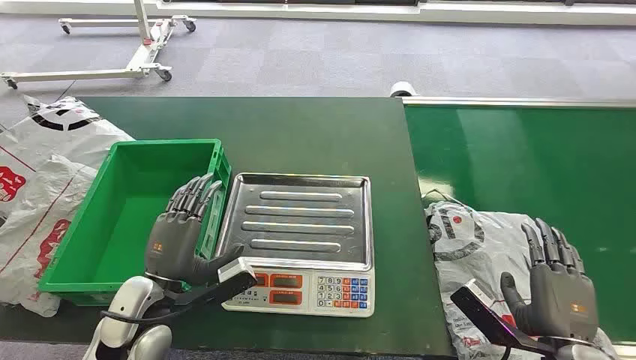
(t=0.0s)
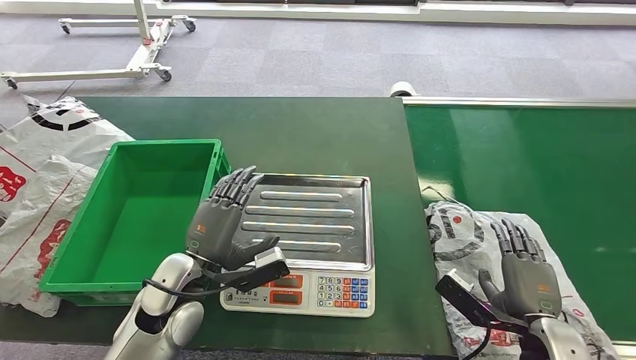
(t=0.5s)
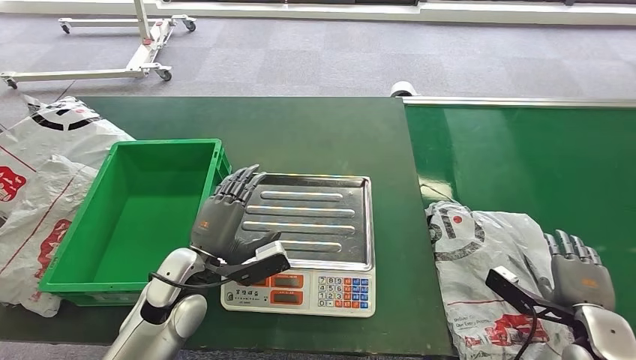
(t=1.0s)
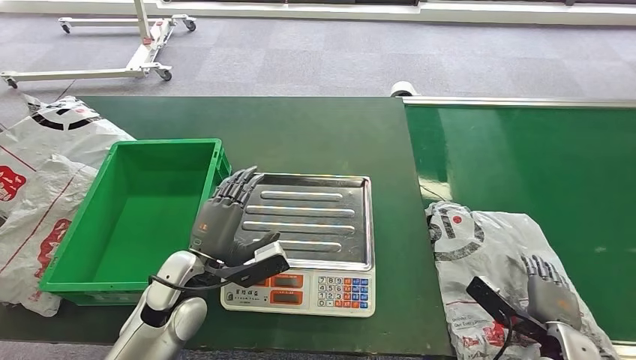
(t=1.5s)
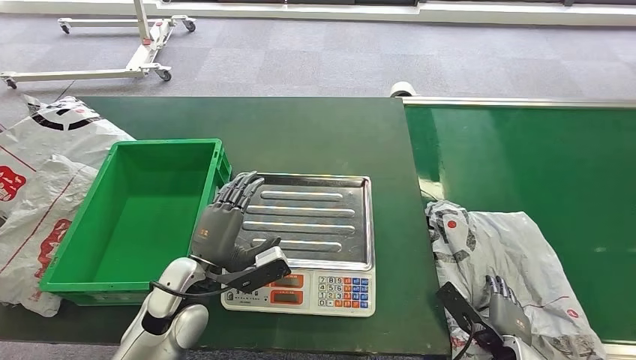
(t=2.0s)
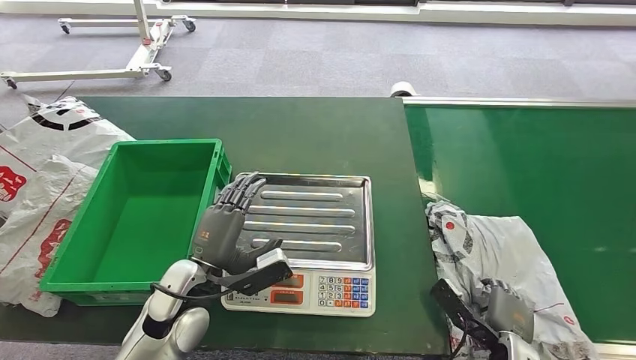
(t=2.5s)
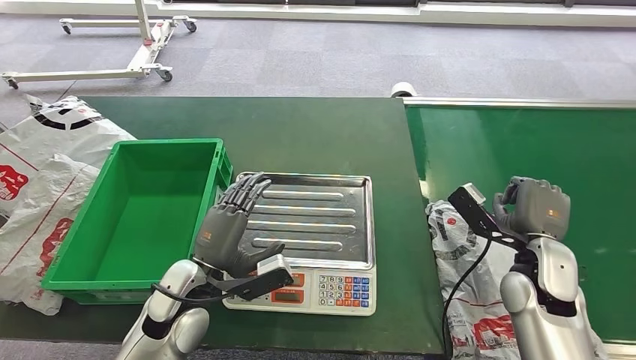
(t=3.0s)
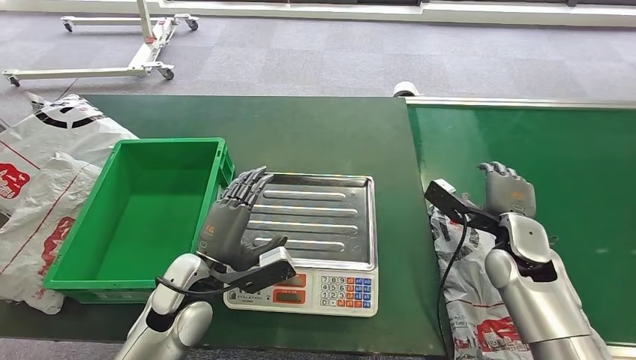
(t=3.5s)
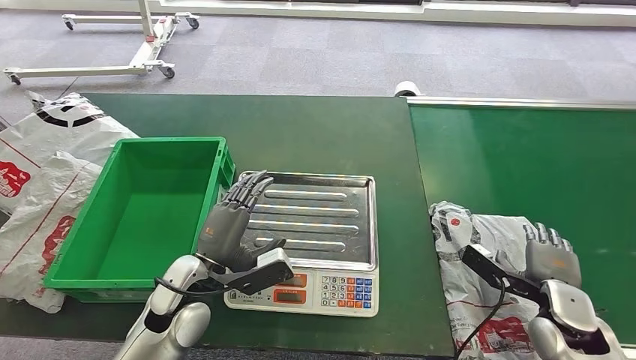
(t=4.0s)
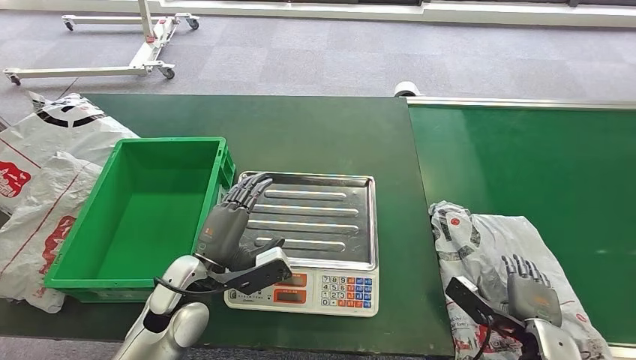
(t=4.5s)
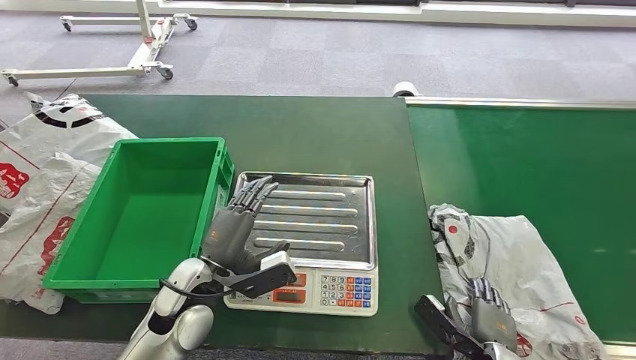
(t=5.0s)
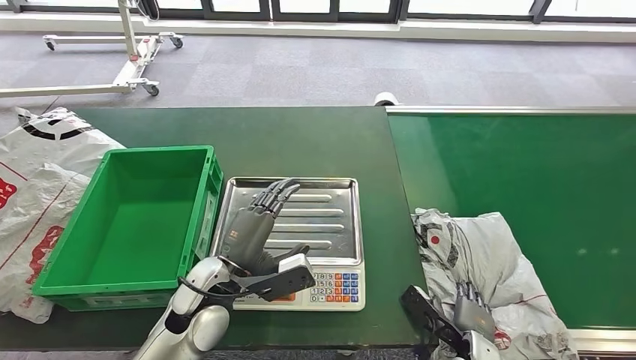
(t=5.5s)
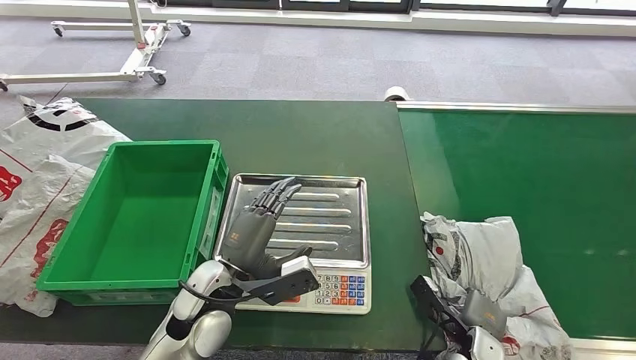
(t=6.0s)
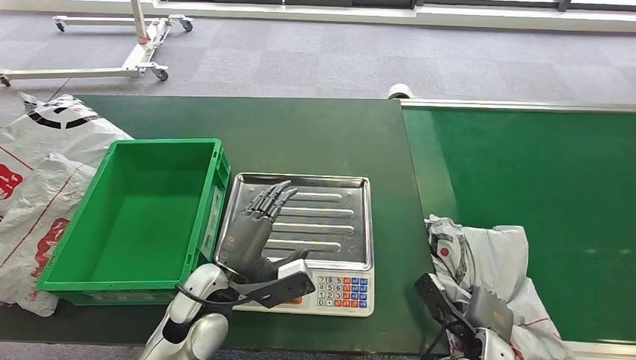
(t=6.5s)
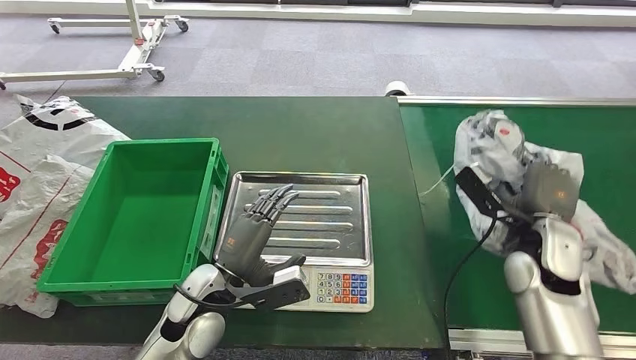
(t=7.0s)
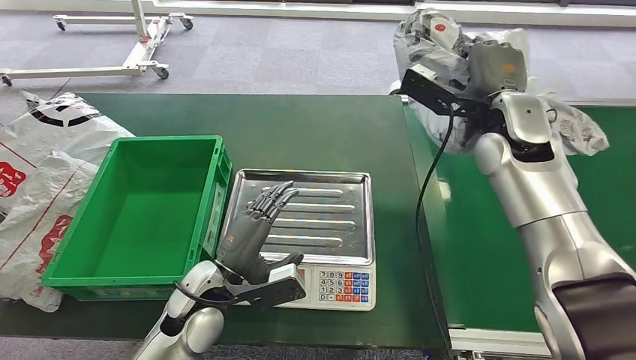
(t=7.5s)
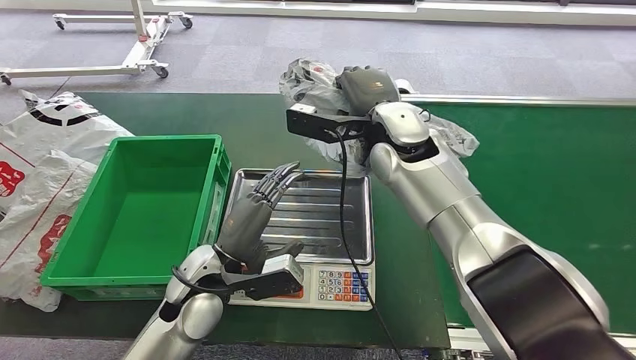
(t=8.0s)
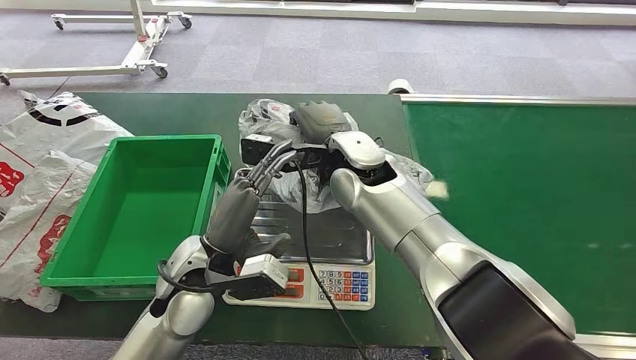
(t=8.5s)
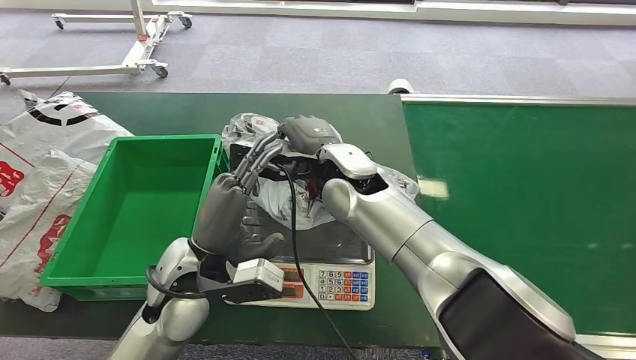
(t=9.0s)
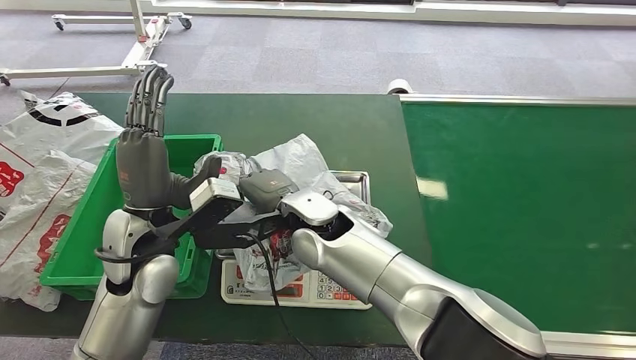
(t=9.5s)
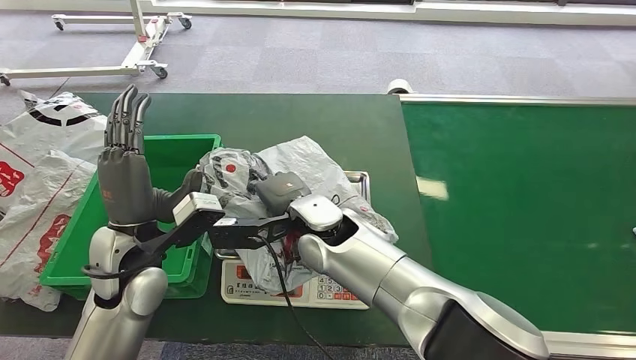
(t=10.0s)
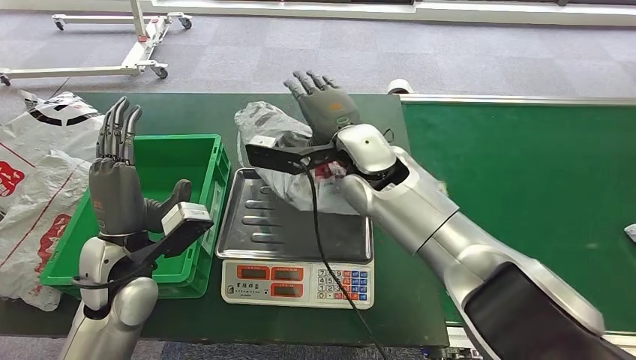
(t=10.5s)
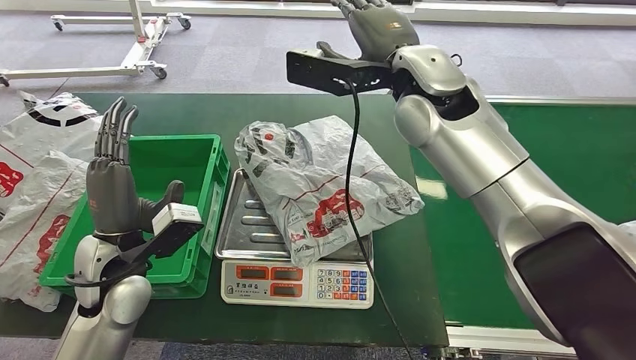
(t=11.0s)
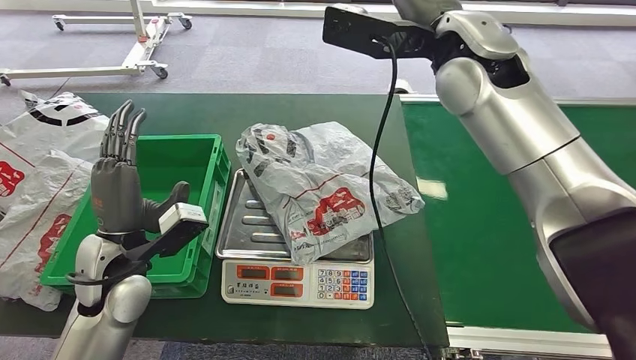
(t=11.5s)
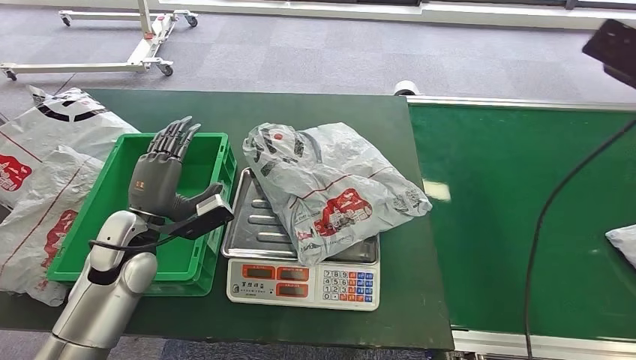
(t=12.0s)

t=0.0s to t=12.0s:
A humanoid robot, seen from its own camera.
Step, t=0.0s to t=7.0s: Pick up the package from the conveyor belt.
Step, t=8.0s to t=11.5s: Place the package onto the inbound machine.

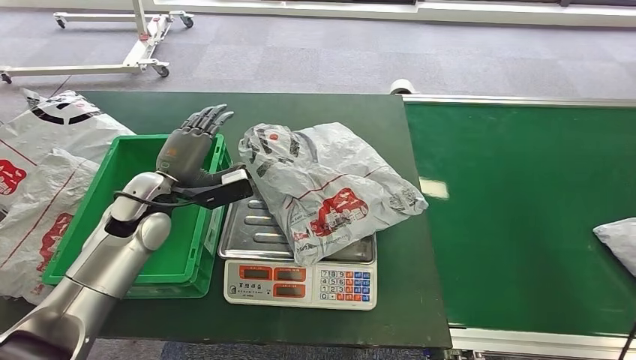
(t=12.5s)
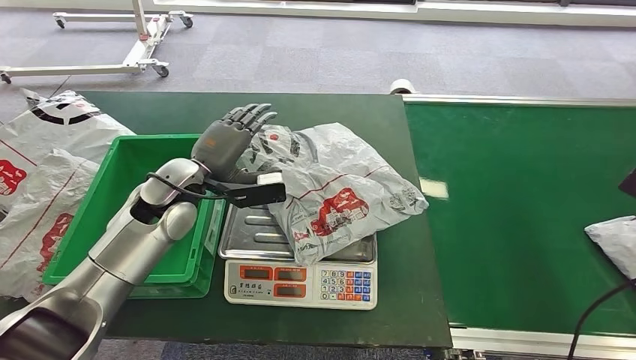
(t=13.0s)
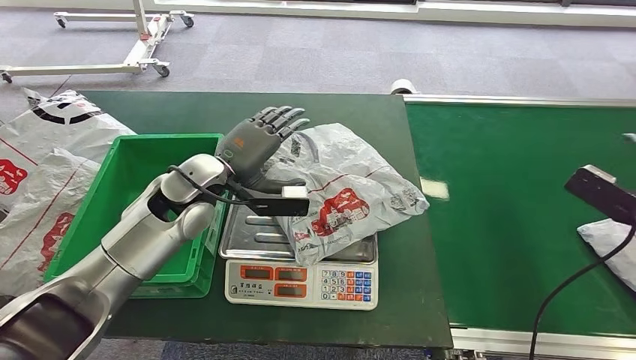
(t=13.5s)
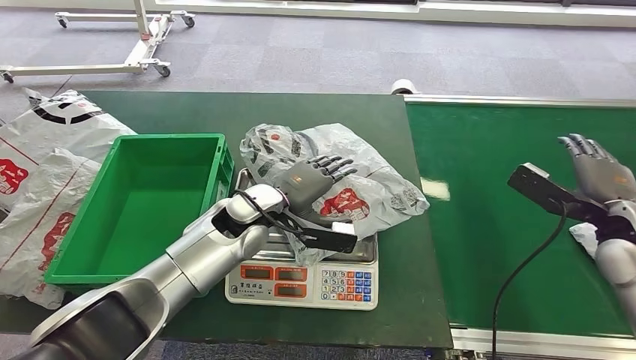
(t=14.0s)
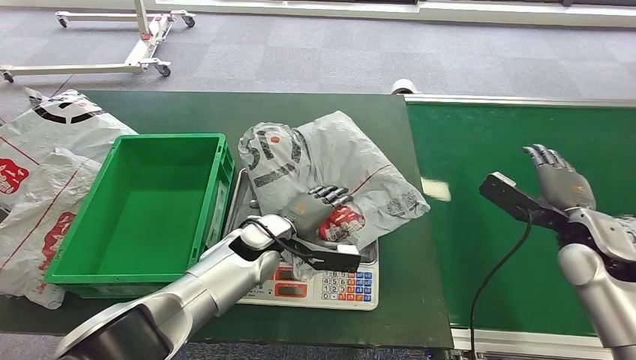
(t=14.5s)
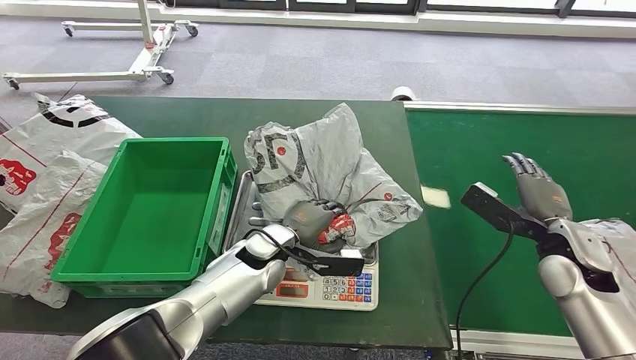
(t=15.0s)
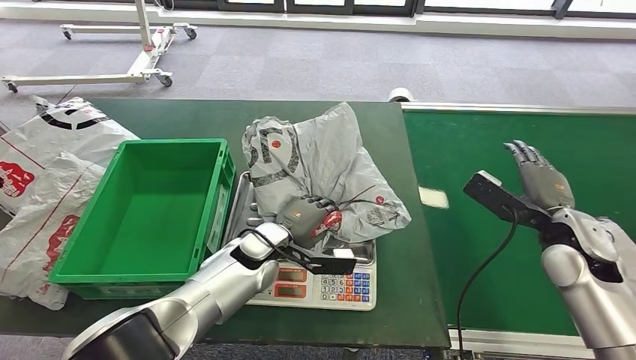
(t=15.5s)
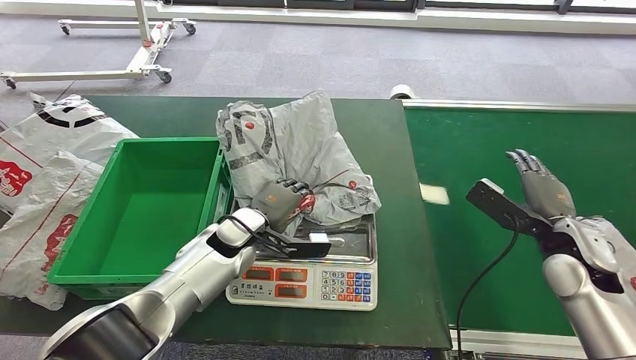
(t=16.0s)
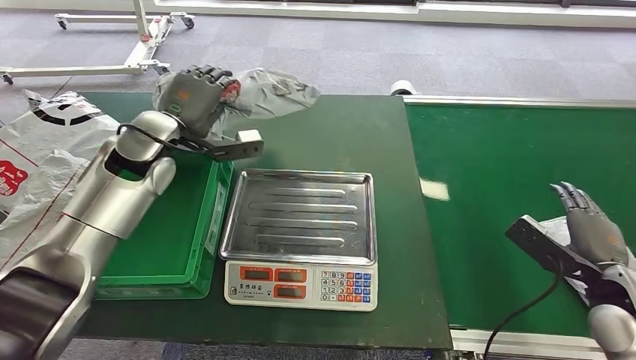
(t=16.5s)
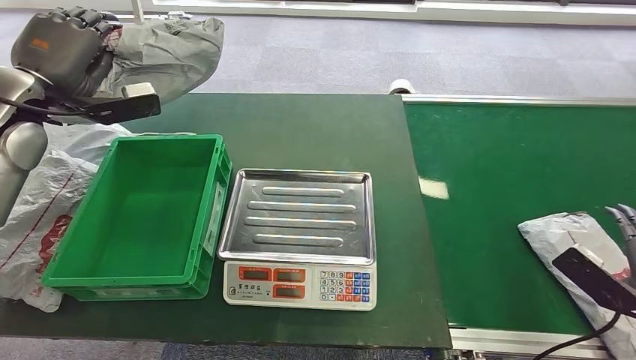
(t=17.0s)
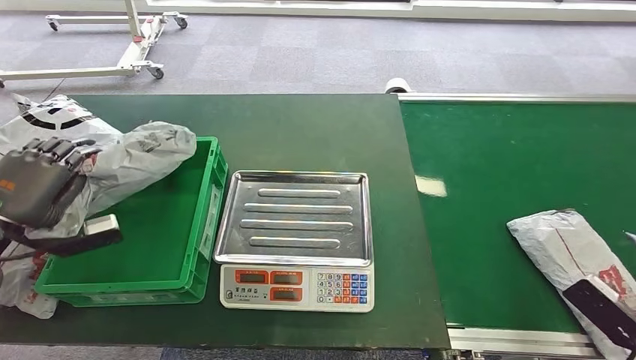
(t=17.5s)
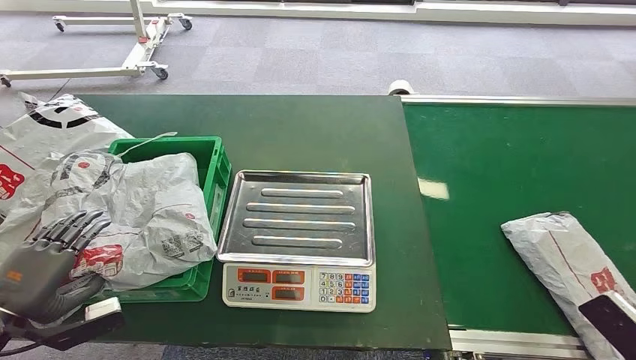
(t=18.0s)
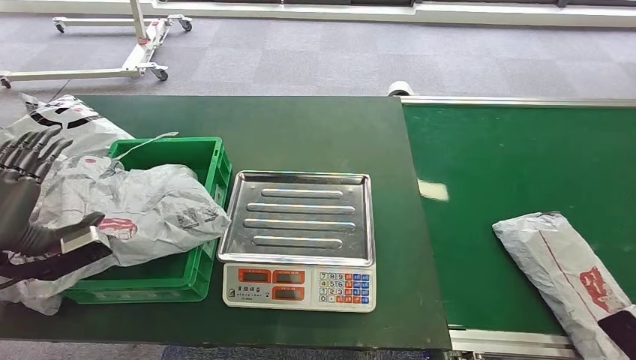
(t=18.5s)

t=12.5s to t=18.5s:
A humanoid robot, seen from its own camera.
Step, t=12.5s to t=16.5s: Pick up the package from the inbound machine.
Step, t=17.0s to t=18.5s: Place the package into the parcel locker.

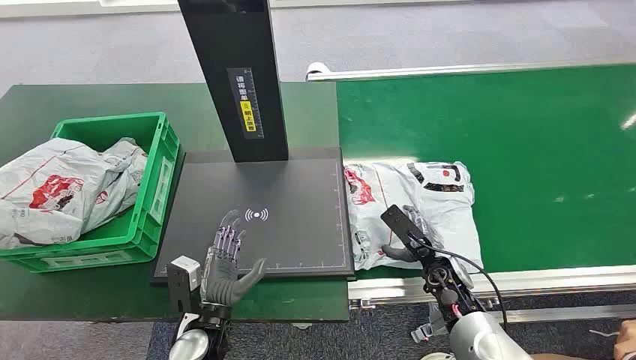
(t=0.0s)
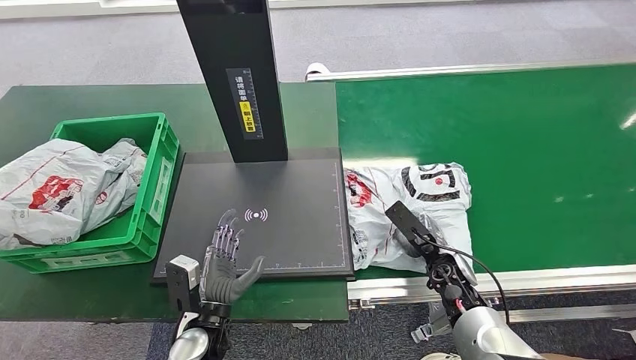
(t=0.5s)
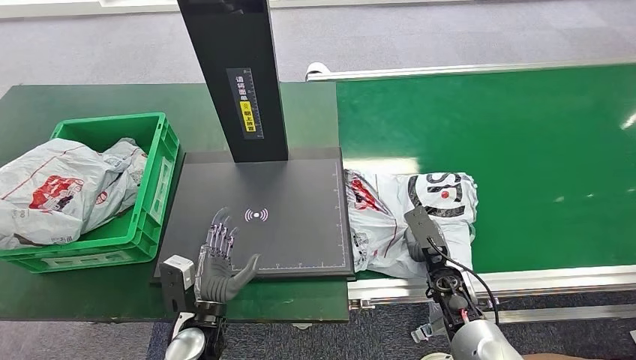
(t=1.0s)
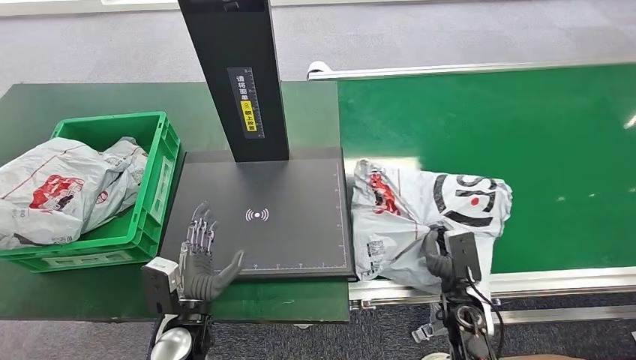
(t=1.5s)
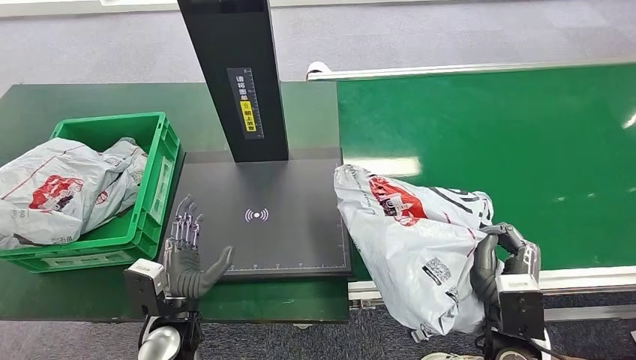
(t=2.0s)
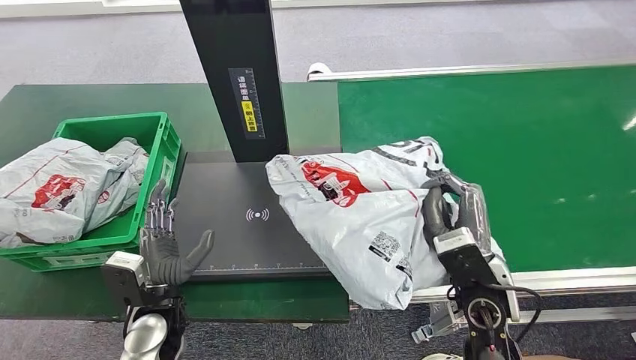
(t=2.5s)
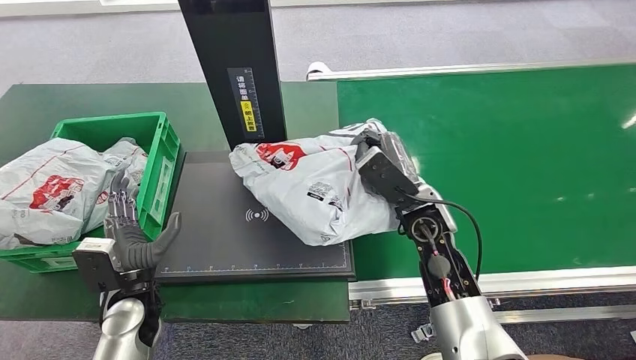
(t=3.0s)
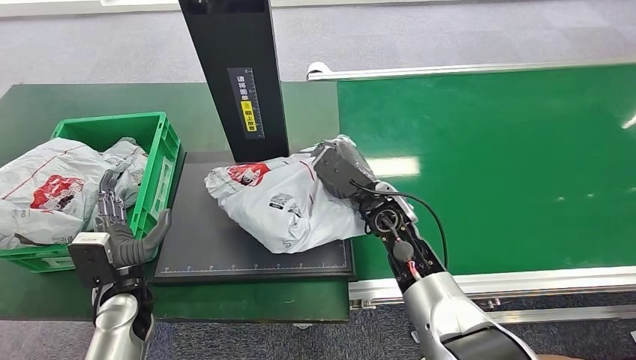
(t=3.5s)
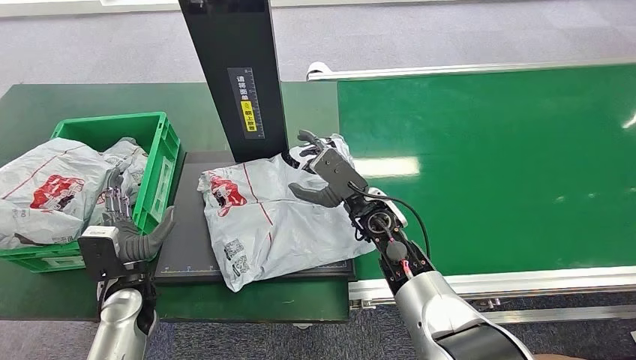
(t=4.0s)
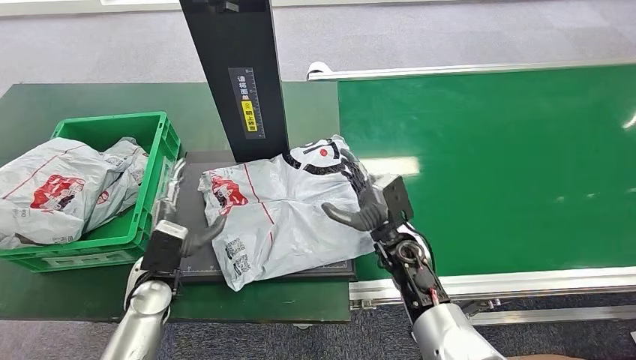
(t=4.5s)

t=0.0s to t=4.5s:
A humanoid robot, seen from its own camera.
Step, t=0.0s to t=2.0s: Pick up the package from the conveyor belt.
